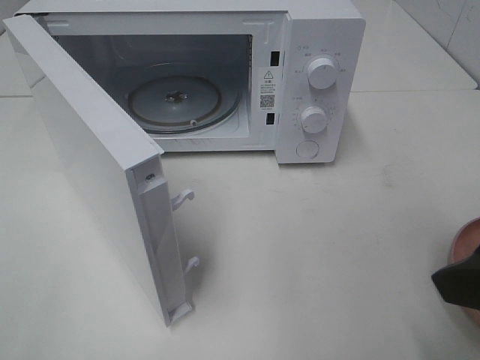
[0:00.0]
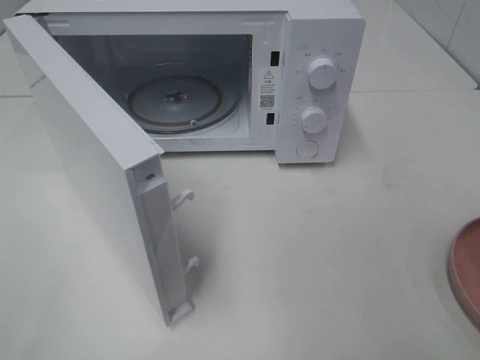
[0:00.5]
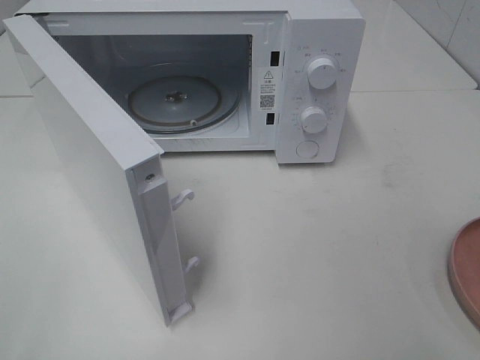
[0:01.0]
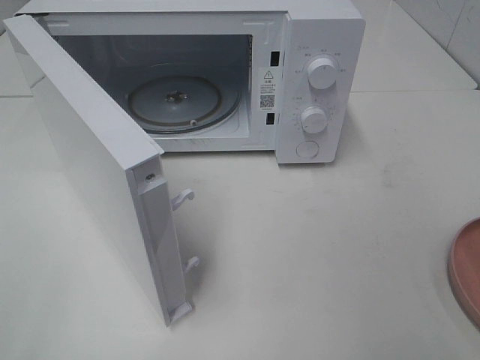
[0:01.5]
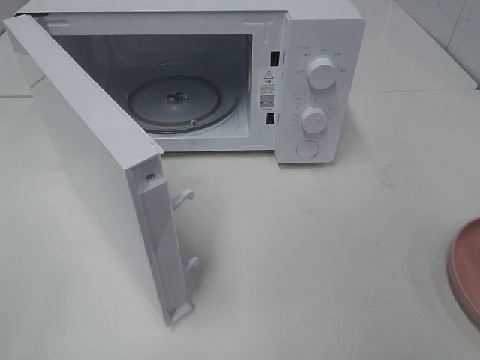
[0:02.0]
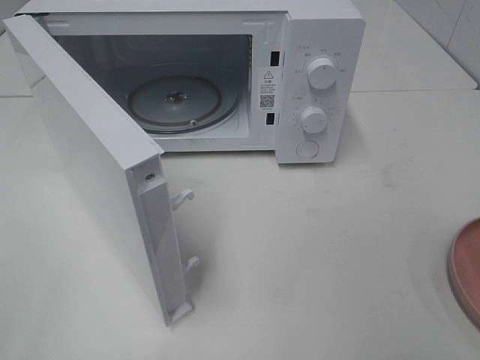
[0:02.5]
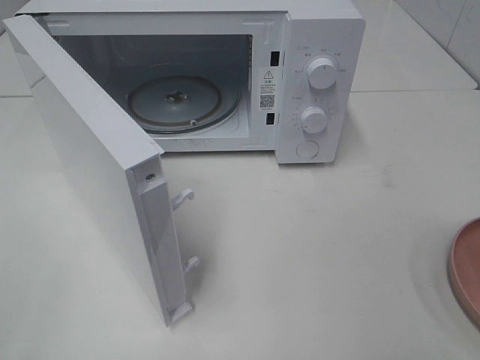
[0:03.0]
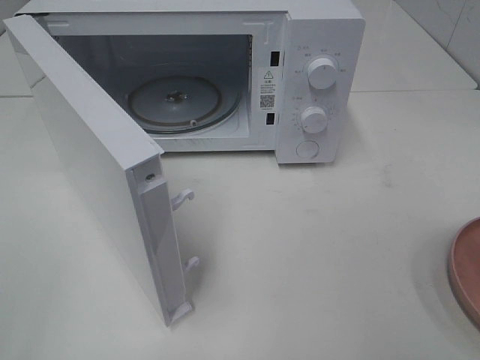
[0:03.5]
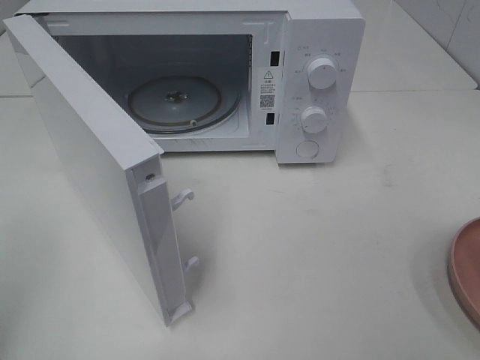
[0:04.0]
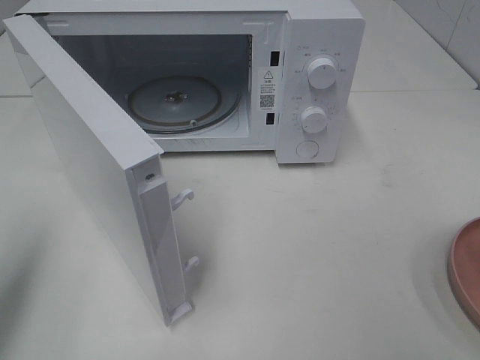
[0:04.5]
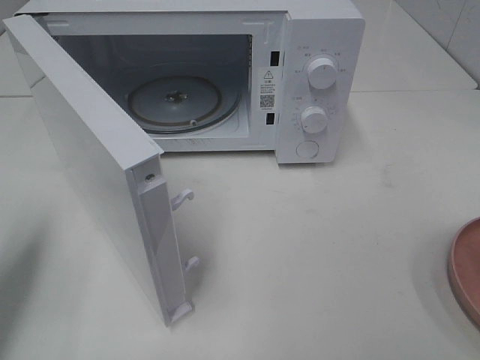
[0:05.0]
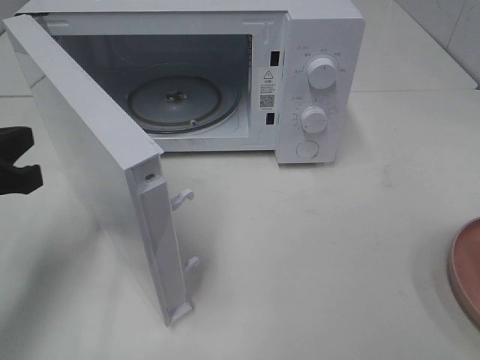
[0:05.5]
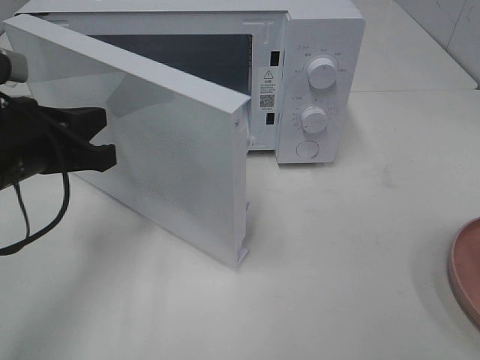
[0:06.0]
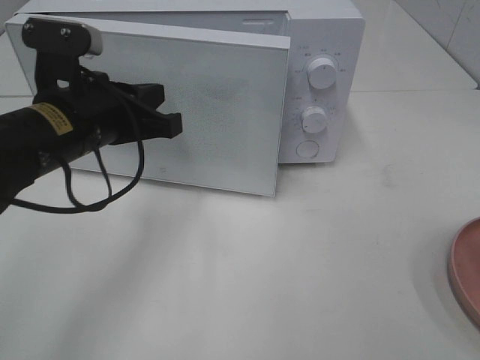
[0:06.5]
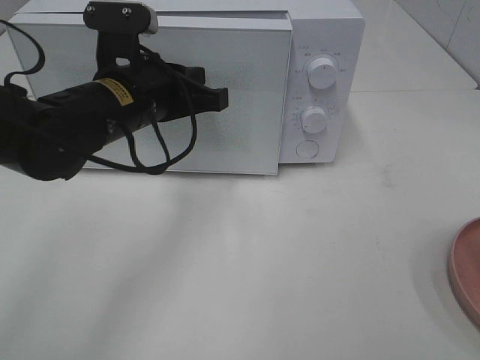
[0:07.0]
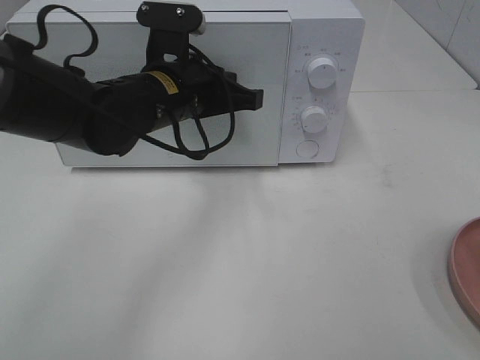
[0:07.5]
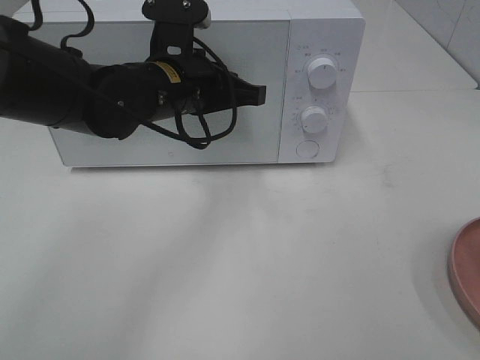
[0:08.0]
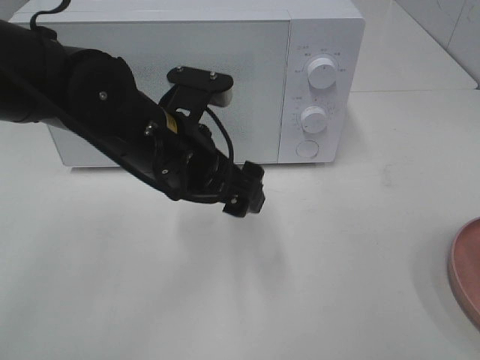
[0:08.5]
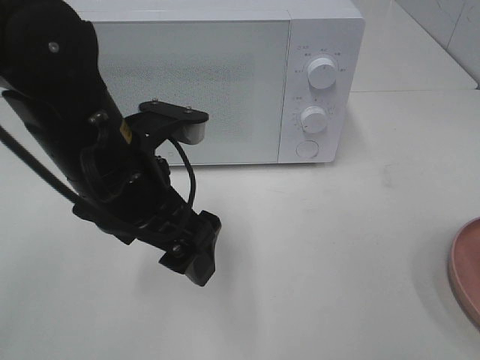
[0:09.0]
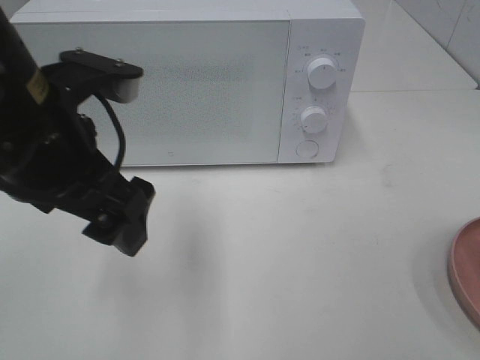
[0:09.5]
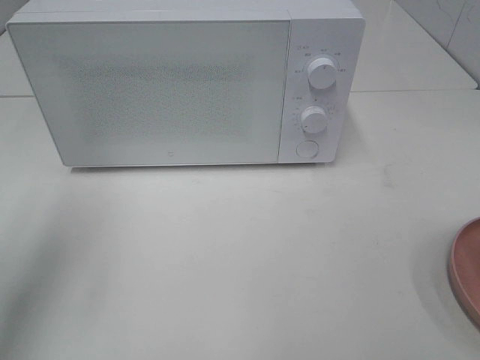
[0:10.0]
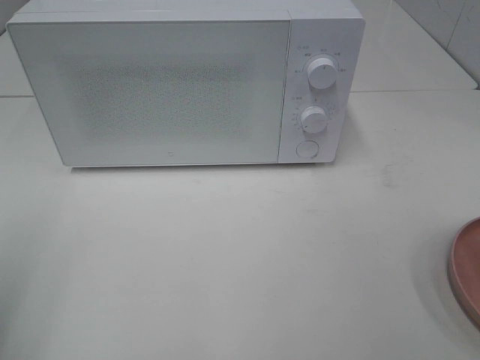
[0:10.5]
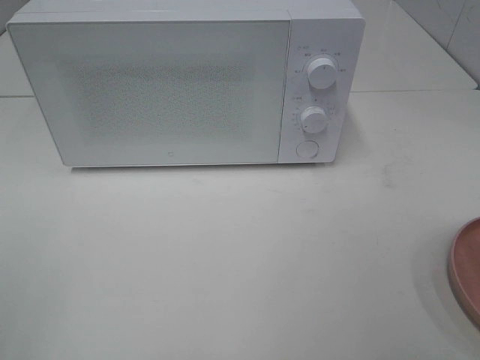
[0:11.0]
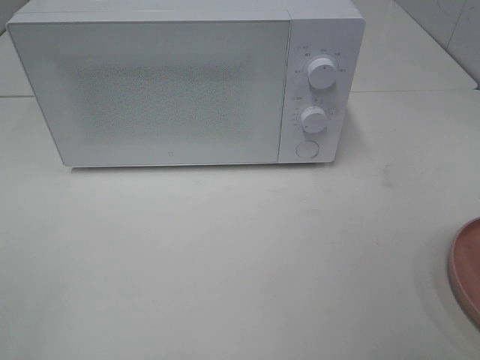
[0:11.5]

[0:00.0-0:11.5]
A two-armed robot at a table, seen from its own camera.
Task of the whole recording: Heat the burger.
Step, 0.0 to 8.0 s: Left hand: close the microwave door.
0.0 to 2.0 s: The right gripper moves backward and to the right, roughly 15 cm.
4.0 to 6.0 s: The left gripper is displaced forward, downward and to the right by roughly 25 cm.
6.0 to 7.5 s: The left gripper moves to the right and forward, approximately 15 cm.
7.5 to 9.5 s: The left gripper goes about 15 cm backward, upward and to the left, and opens up.
9.5 to 11.5 s: The left gripper shifts roughly 30 cm backward and to the left.

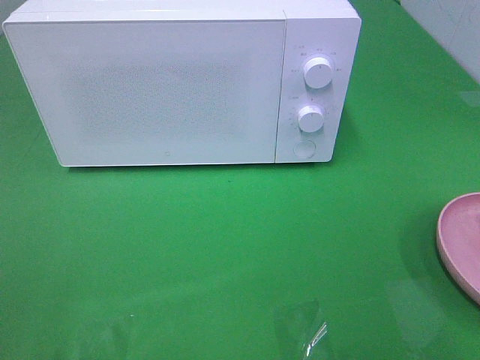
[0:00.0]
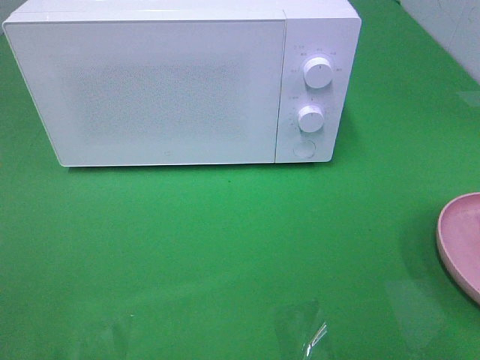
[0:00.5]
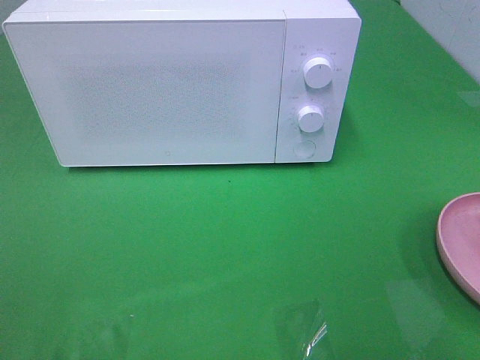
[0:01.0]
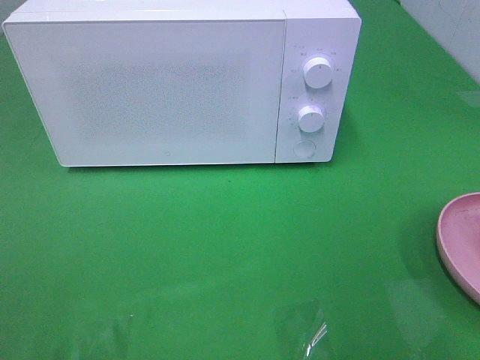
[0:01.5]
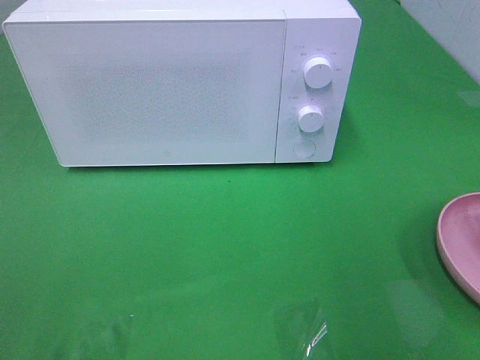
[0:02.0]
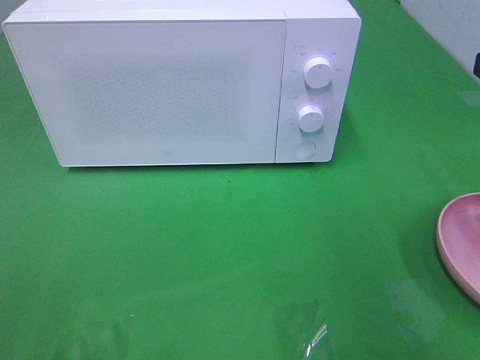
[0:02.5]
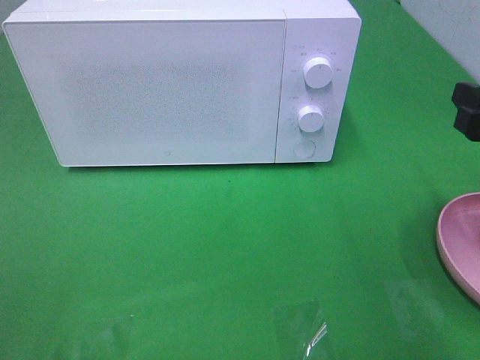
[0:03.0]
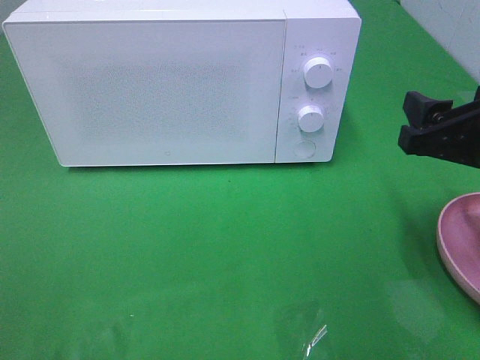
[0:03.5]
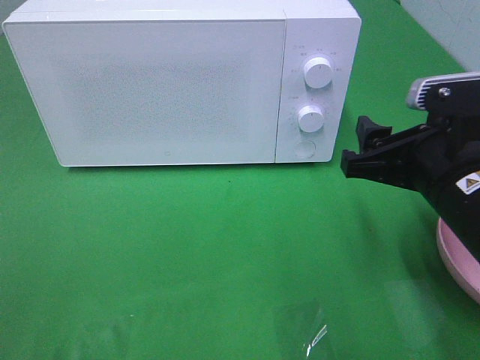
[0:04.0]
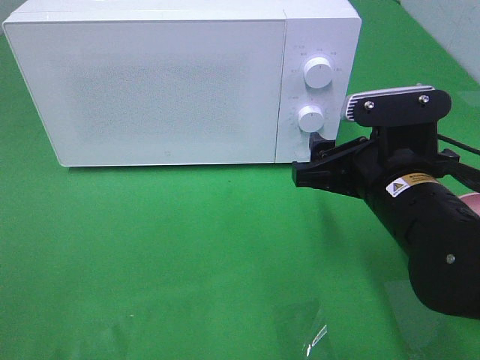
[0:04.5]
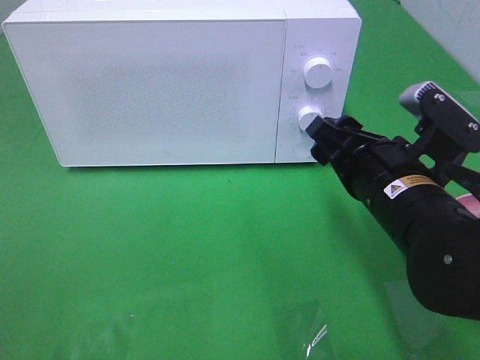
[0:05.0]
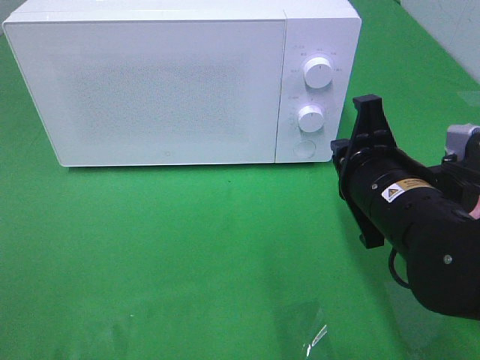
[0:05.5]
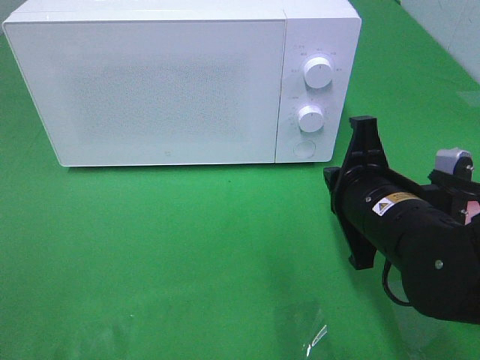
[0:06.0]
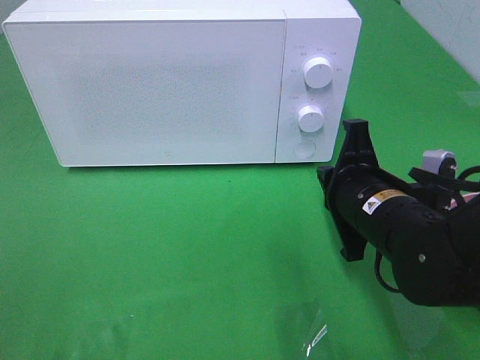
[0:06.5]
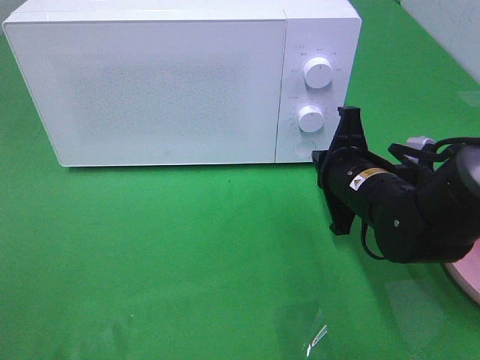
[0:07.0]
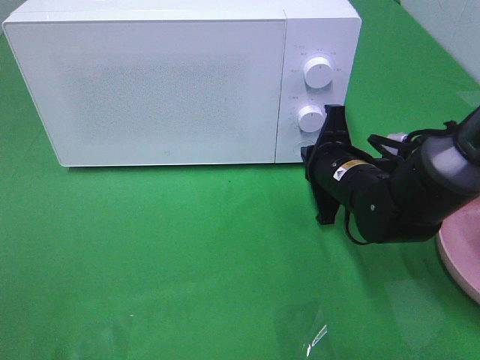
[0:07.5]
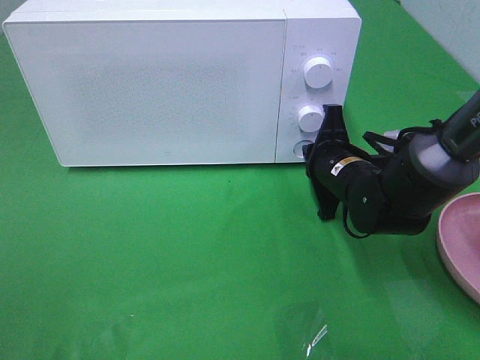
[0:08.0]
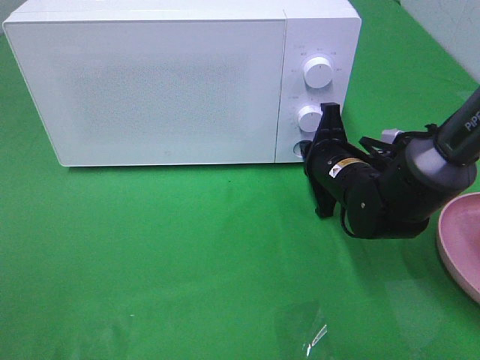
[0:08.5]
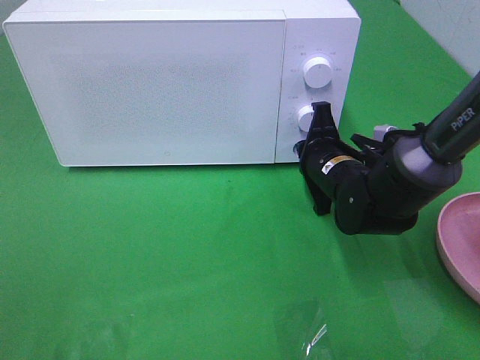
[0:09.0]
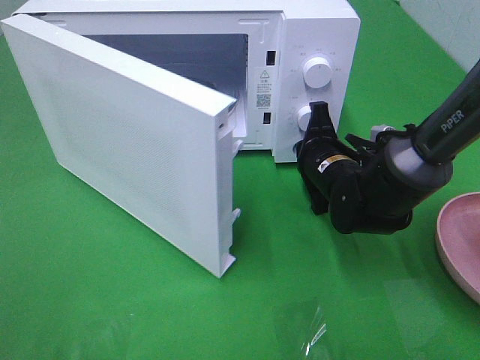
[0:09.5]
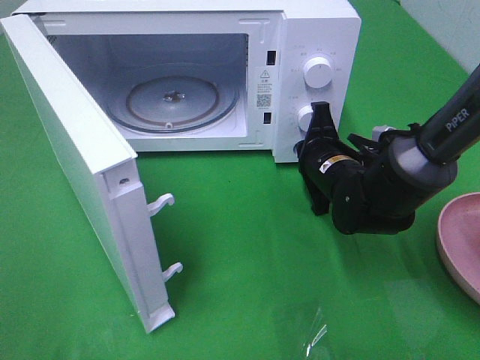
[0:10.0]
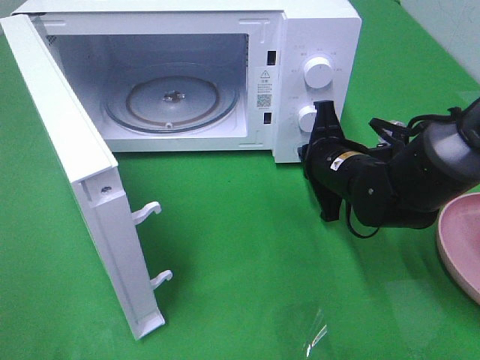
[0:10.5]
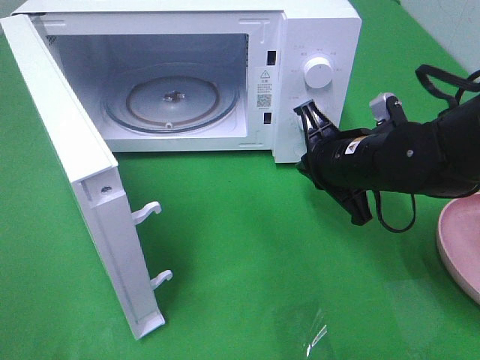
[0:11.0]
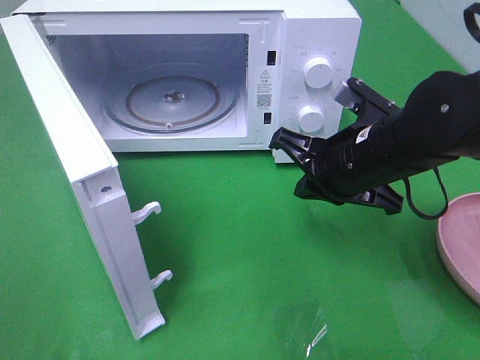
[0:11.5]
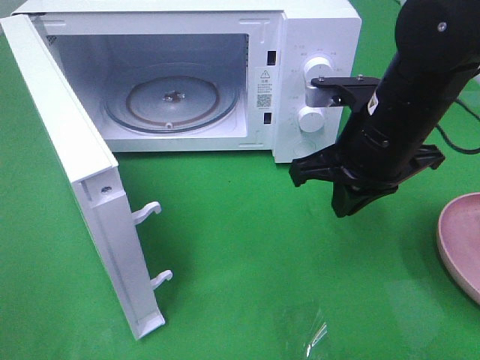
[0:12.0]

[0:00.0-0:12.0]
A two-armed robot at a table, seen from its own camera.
Task of the whole recording: Heat the burger.
Step, 0.0 to 10.5 s: Right hand: press the switch.
2.0 to 4.0 s: The right gripper travels downward and to the left by some 15 cm.
4.0 to 6.0 s: The right gripper heads downward, covering about 5 cm, and closes up.
6.0 to 8.0 s: The right gripper travels forward and downward by some 15 cm.
10.0 to 12.0 s: The right gripper travels upward and backward by roughly 15 cm.

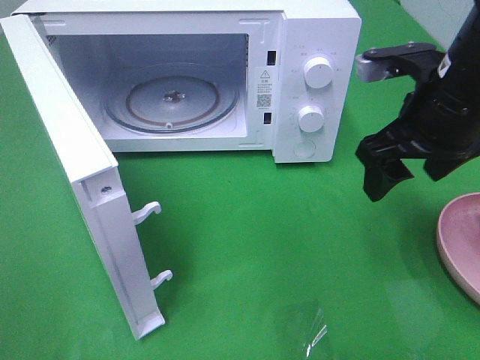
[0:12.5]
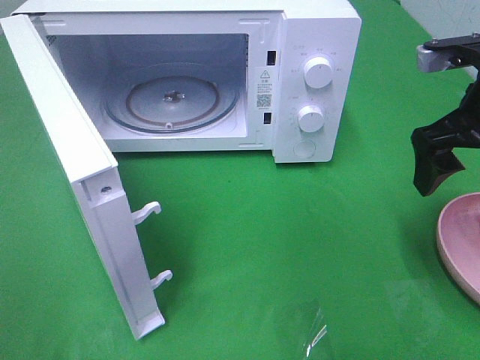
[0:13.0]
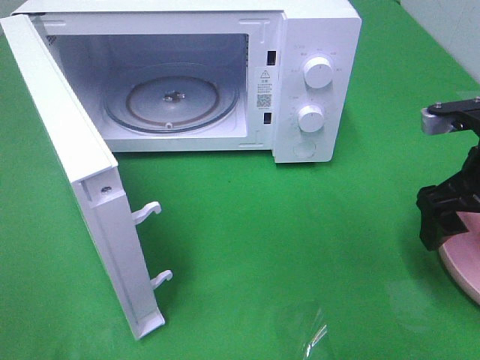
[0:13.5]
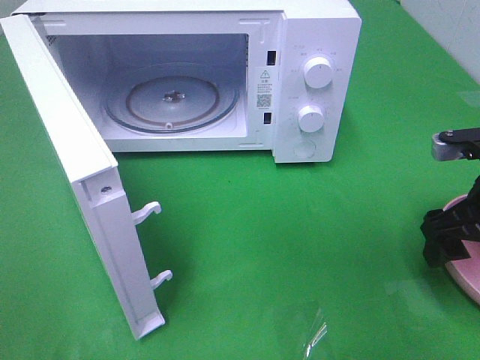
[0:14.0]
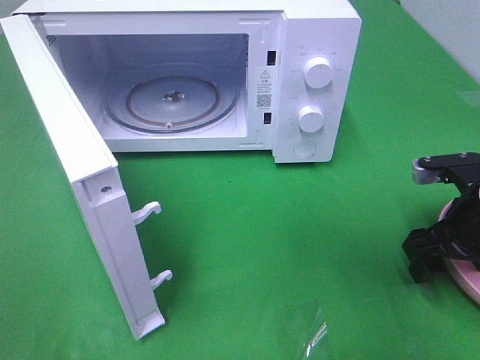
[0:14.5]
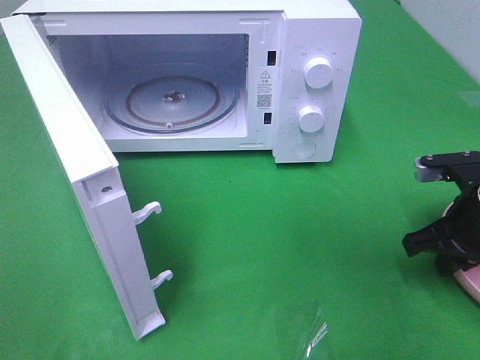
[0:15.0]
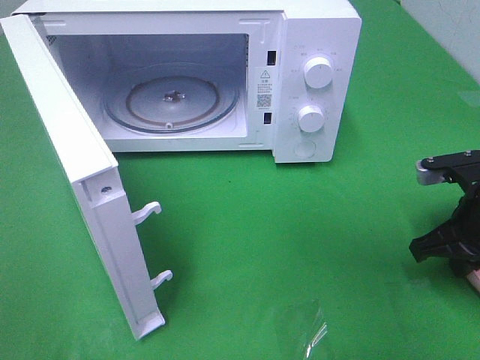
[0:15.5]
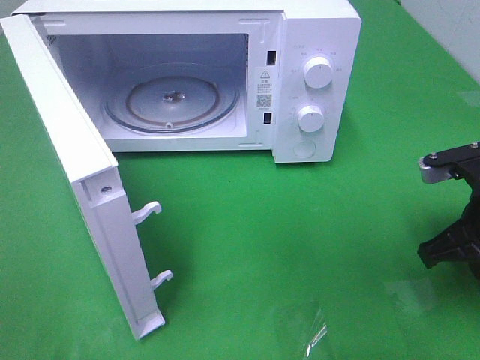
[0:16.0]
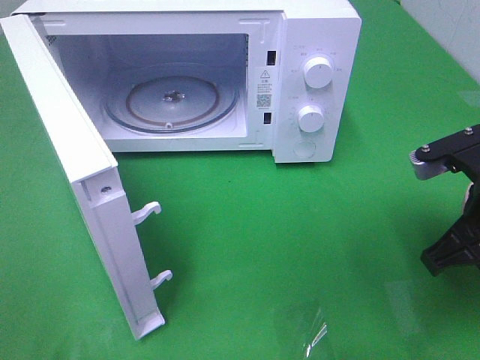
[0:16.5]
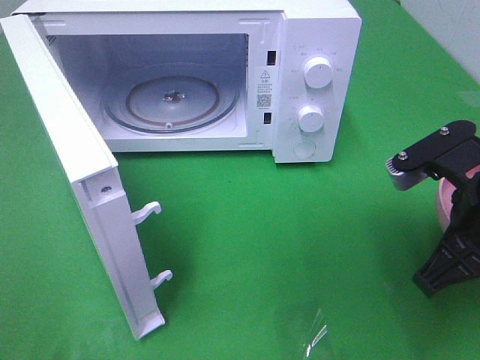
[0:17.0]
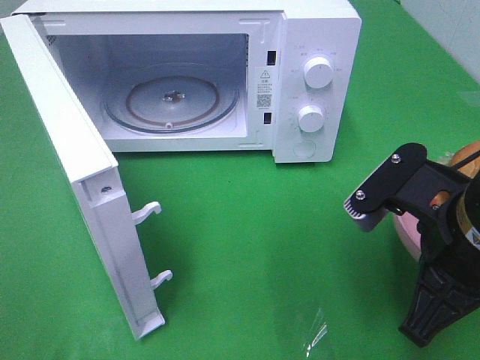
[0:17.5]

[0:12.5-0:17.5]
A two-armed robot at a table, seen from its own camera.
Task of the whole recording: Heat the burger.
Step, 12.5 to 15.5 s: Right hand: grab the plate with the hamburger.
12.5 to 15.0 s: The right gripper heads downward and to the right, covering approximately 15 cm, and closes up.
15.0 to 17.5 s: The right gripper moves to the left, backward and upward, some 15 cm.
